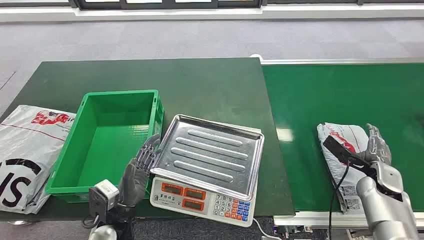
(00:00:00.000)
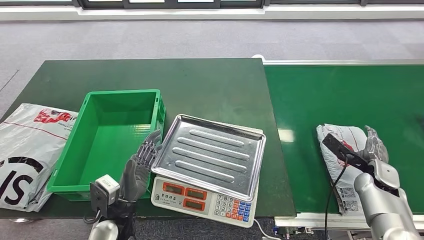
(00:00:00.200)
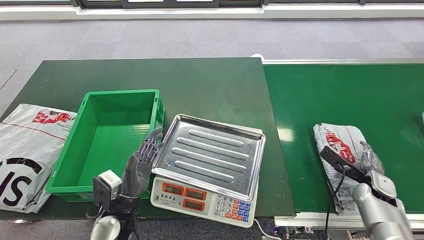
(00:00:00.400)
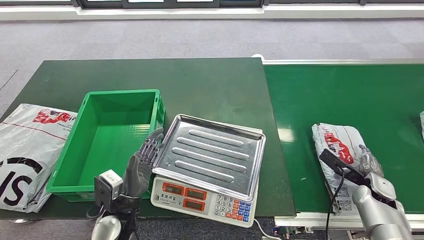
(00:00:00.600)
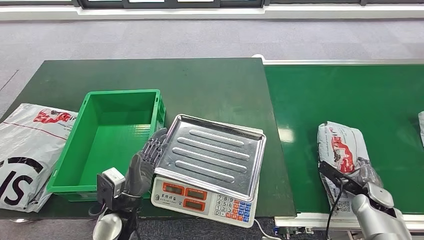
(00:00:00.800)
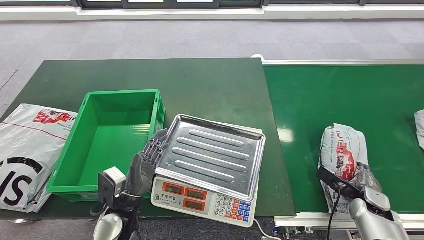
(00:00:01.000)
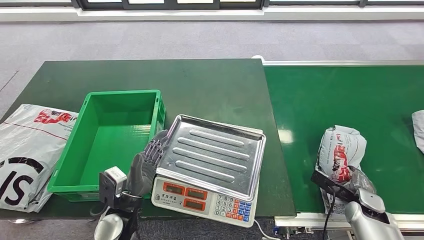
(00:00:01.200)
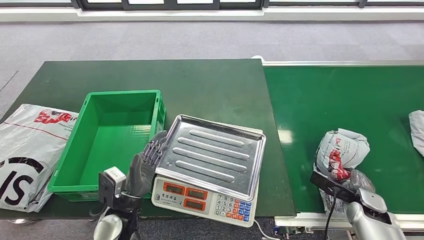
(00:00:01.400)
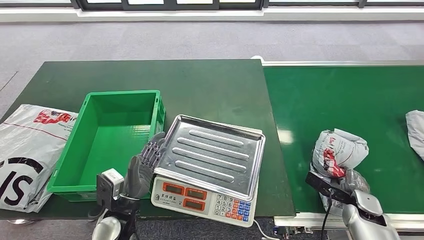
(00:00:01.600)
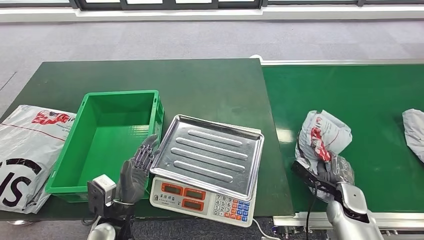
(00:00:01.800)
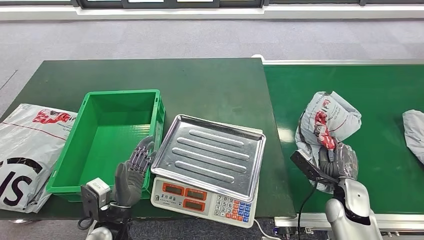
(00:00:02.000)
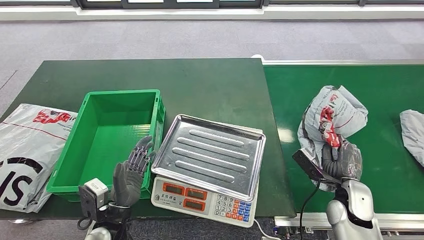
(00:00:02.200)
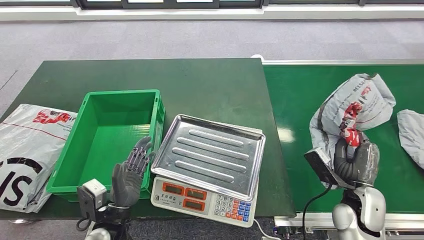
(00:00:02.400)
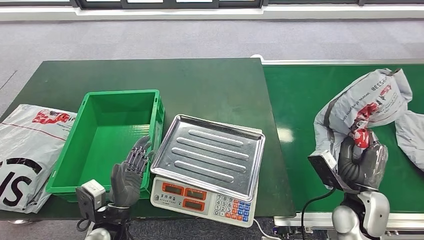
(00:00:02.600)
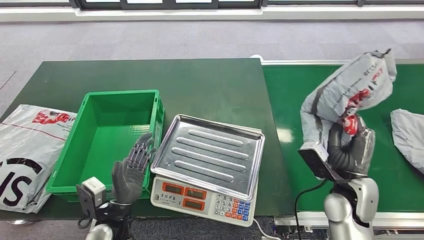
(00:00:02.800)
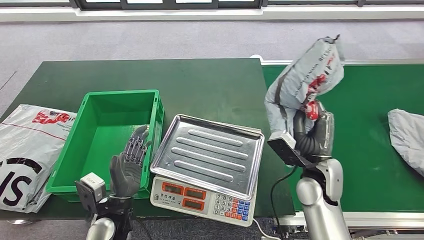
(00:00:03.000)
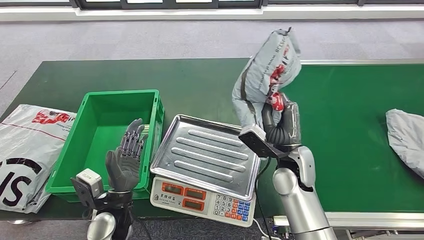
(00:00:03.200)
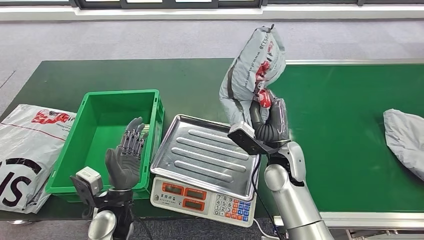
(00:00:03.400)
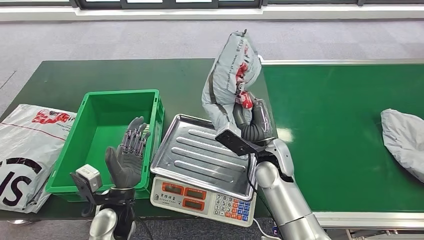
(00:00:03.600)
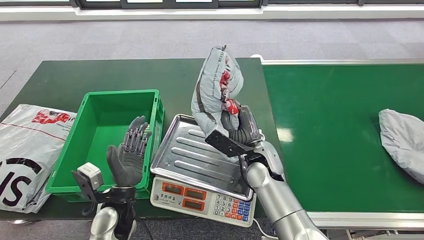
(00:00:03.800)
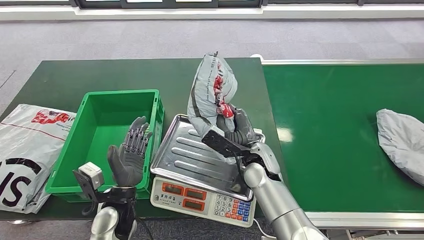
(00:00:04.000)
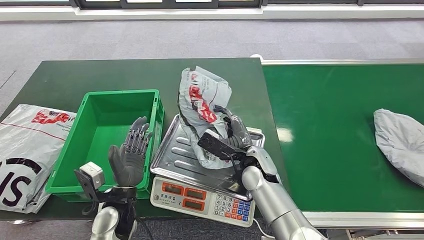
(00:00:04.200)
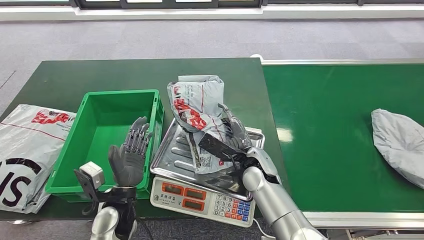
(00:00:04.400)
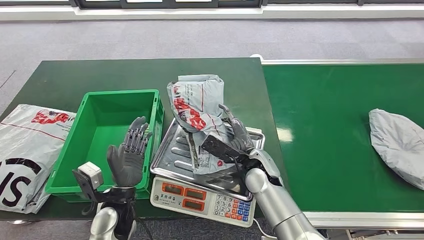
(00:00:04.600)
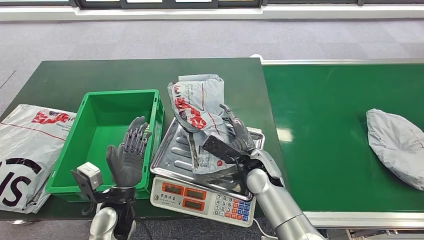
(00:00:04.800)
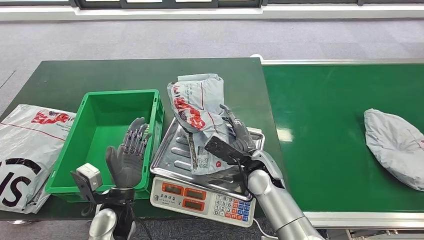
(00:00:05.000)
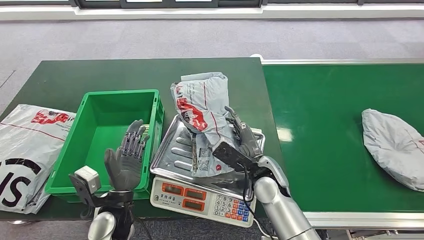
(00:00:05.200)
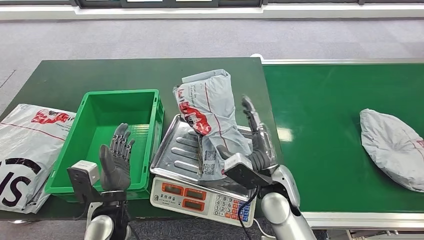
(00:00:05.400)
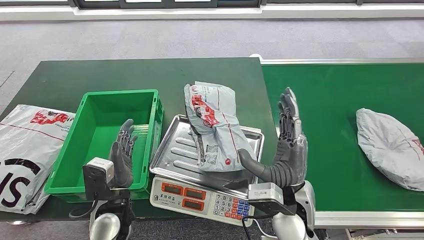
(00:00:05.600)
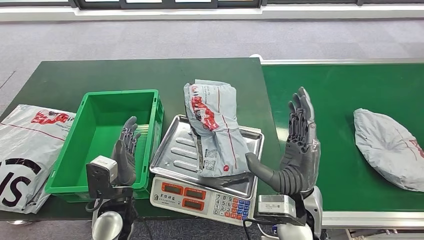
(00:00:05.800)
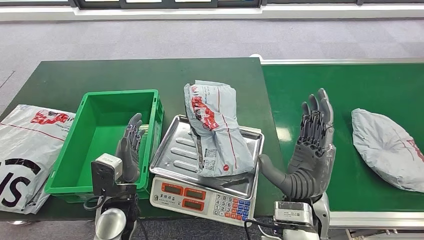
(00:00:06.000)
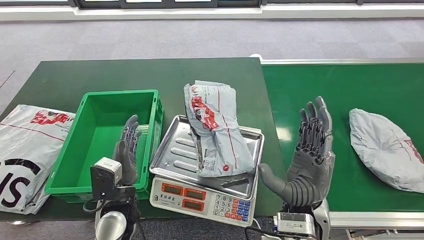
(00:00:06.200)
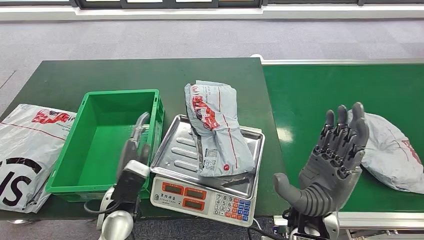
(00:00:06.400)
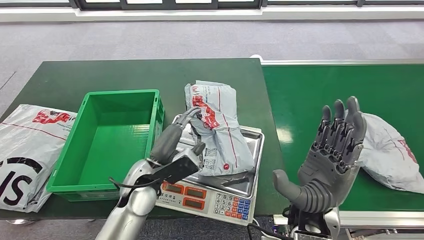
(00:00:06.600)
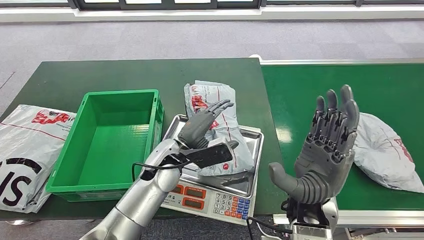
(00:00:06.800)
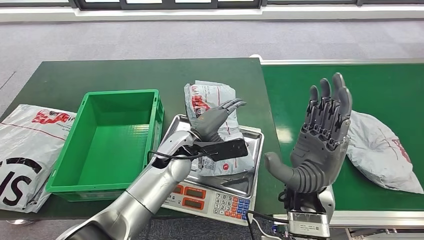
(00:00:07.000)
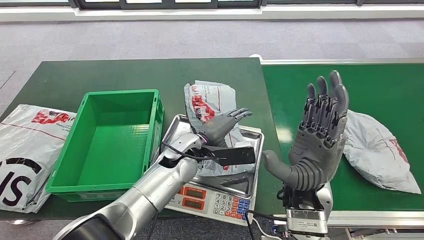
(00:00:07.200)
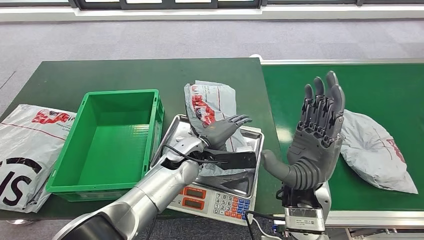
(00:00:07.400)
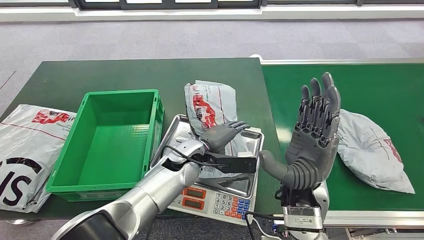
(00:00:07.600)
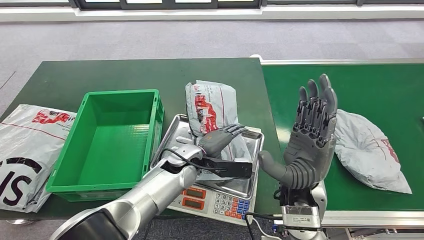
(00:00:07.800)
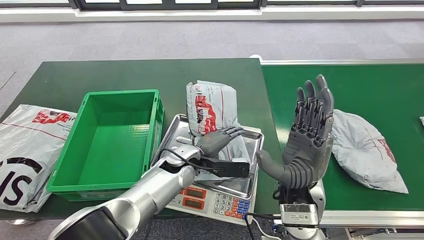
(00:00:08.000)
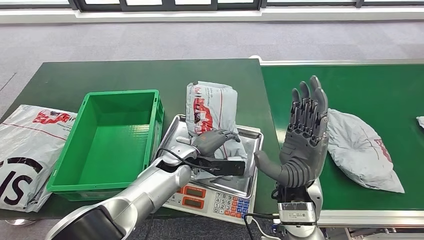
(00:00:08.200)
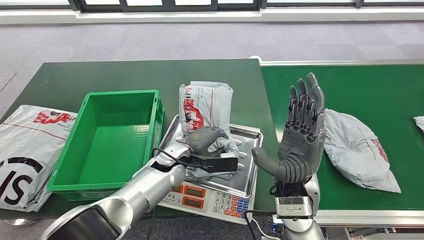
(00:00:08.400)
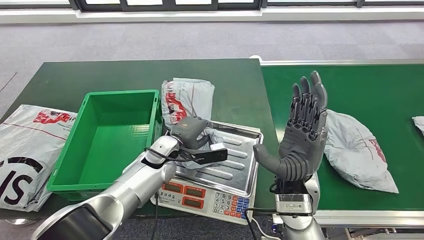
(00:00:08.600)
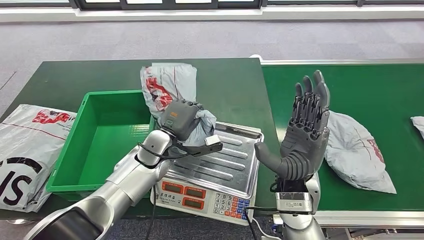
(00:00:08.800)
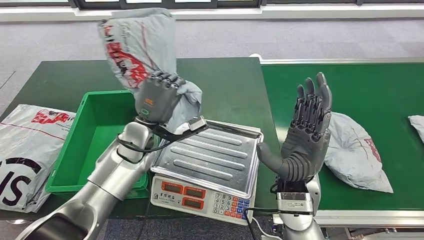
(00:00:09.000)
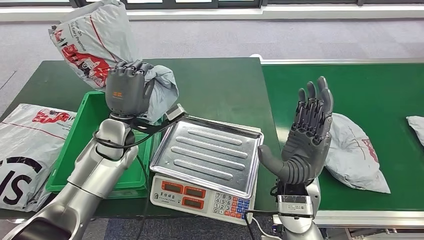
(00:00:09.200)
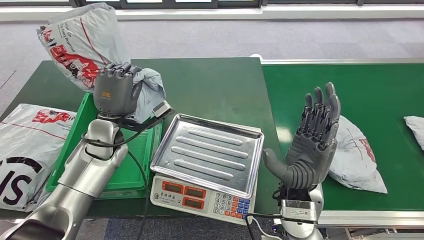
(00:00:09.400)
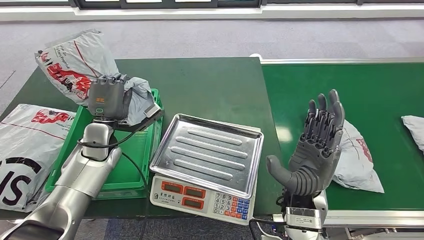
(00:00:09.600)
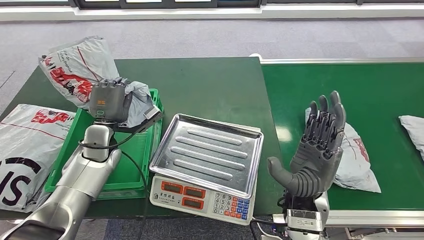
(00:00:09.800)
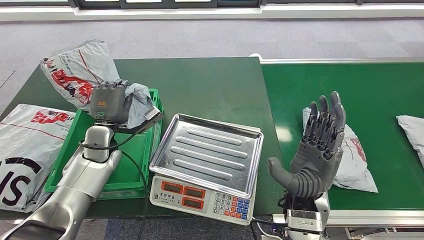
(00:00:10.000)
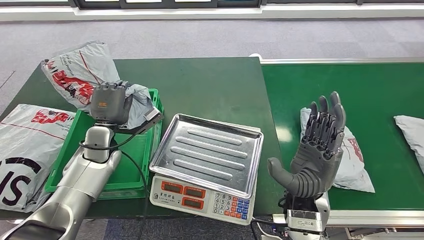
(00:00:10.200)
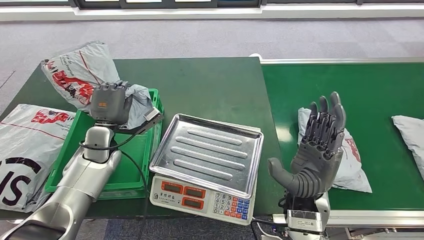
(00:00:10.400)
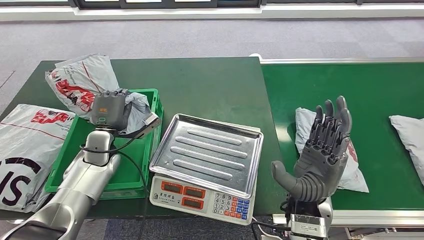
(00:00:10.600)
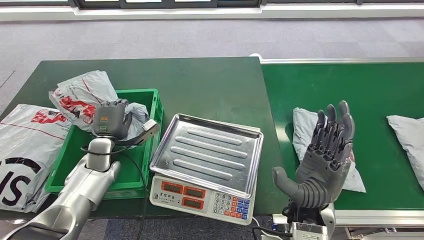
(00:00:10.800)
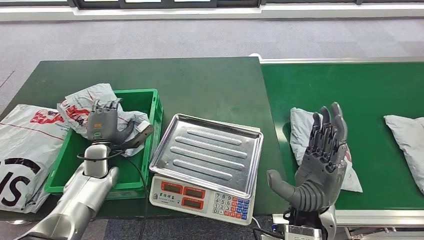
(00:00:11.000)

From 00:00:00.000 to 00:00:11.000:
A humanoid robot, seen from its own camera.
Task of the whole recording: Weigh the package on the weighing device and place it in the left basket.
Step, from 00:00:00.000 to 00:00:02.200: Pick up the package from the conveyor belt.
Step, from 00:00:02.400 to 00:00:05.200: Place the package onto the inbound machine.
Step, from 00:00:05.600 to 00:00:09.200: Pick up the package from the inbound machine.
Step, from 00:00:09.400 to 00:00:11.000: Place the package into the parcel locker.
